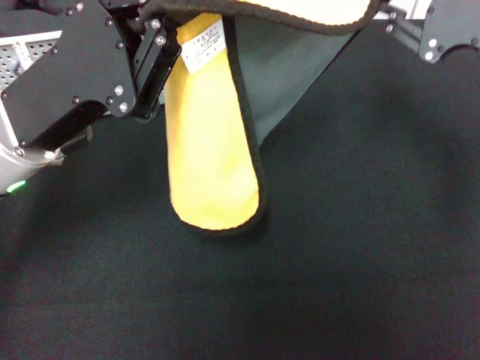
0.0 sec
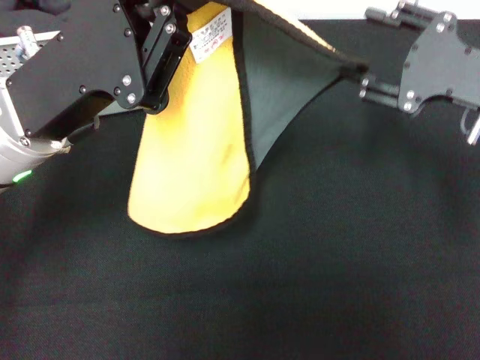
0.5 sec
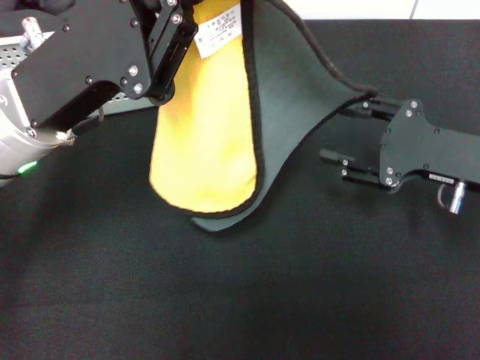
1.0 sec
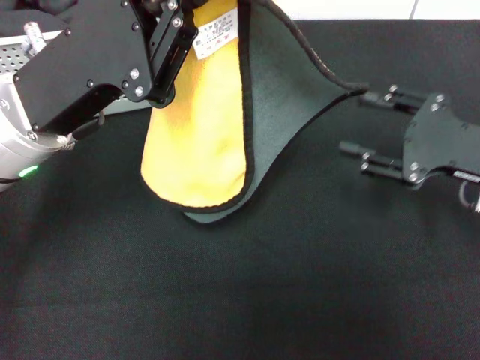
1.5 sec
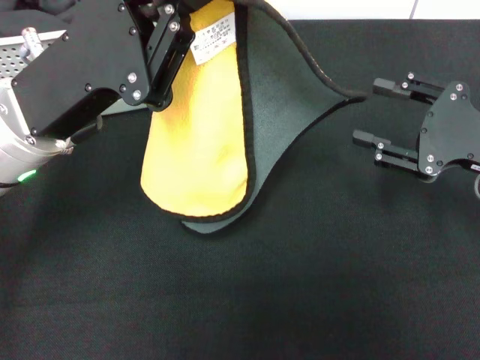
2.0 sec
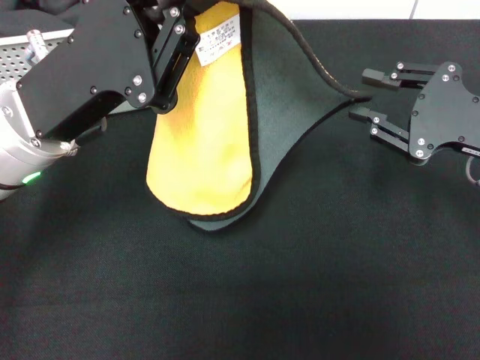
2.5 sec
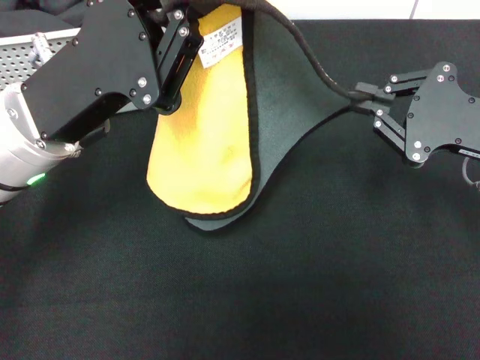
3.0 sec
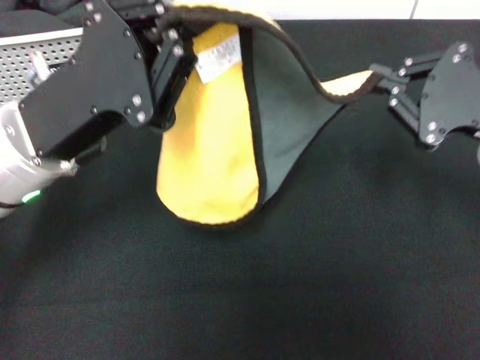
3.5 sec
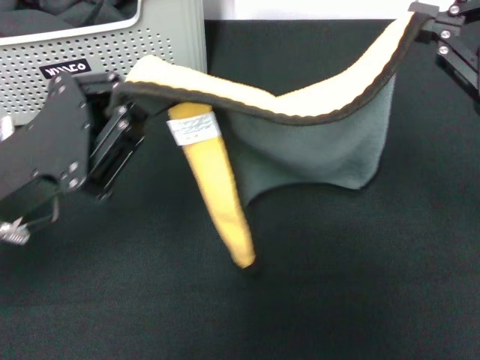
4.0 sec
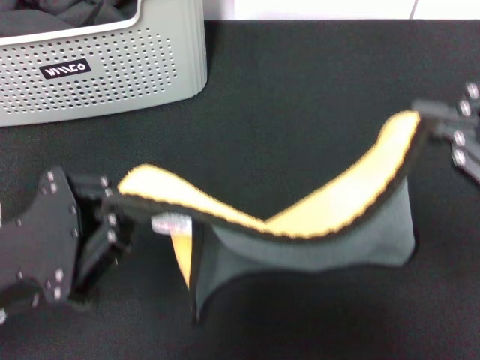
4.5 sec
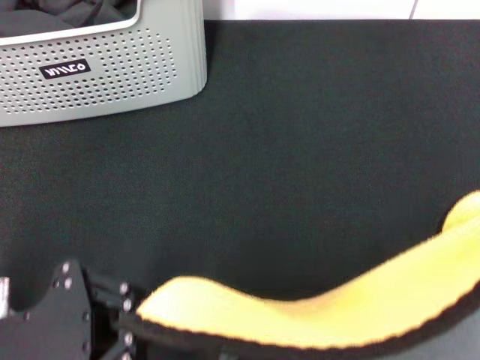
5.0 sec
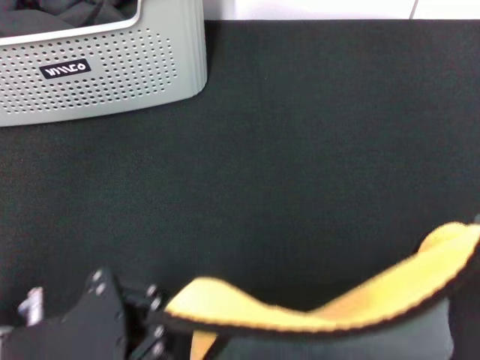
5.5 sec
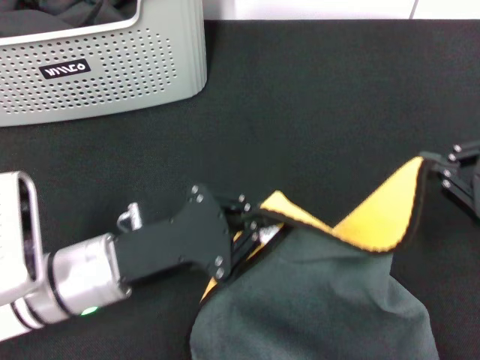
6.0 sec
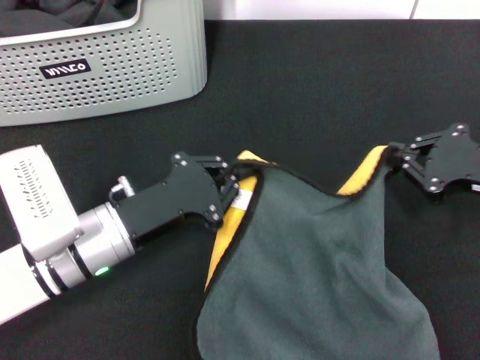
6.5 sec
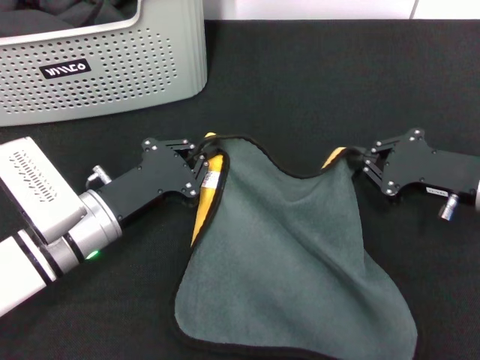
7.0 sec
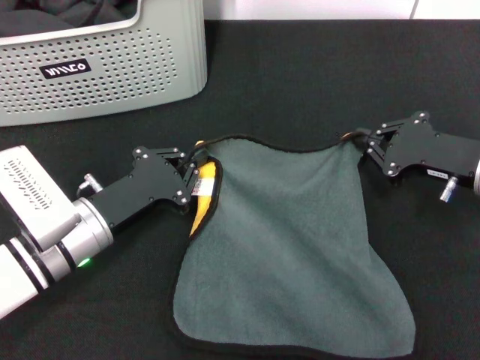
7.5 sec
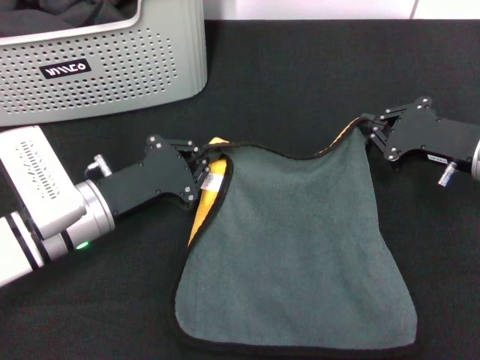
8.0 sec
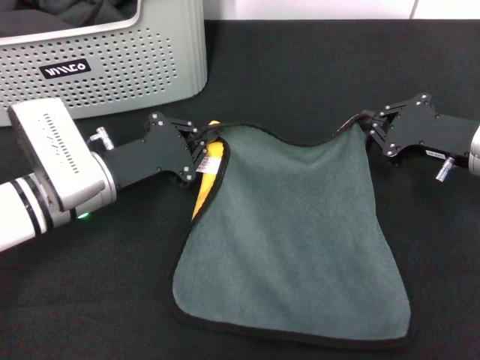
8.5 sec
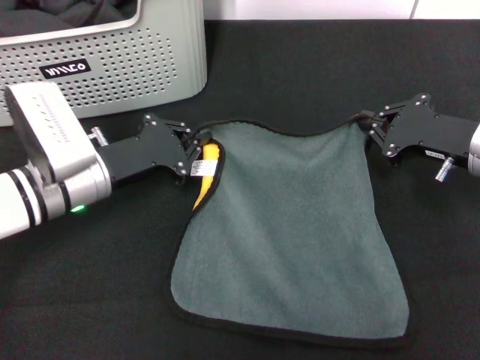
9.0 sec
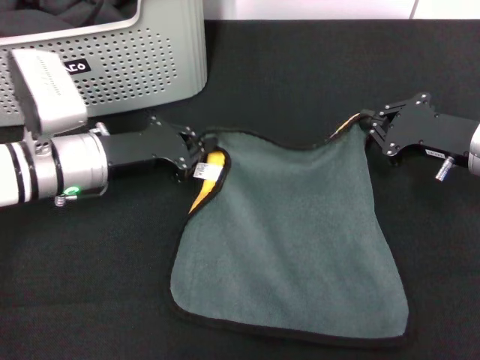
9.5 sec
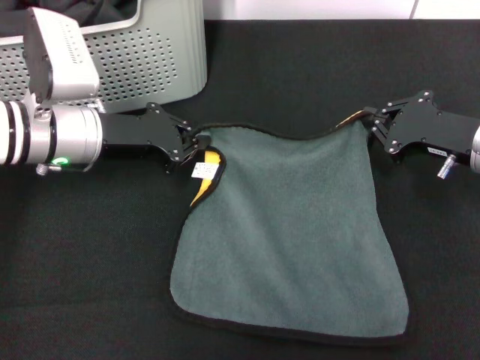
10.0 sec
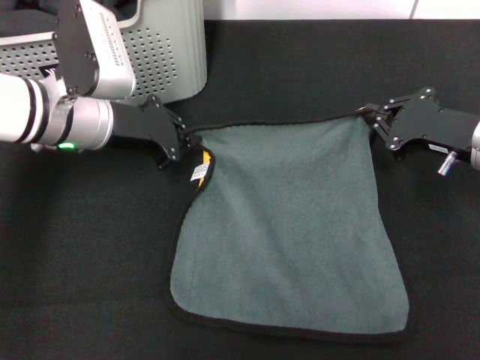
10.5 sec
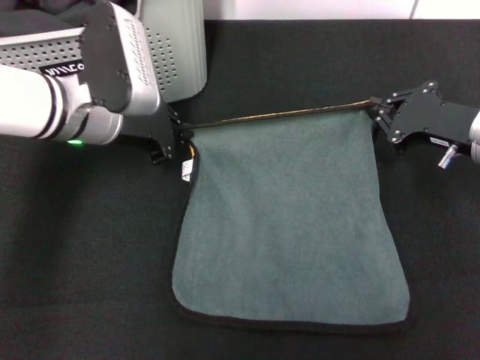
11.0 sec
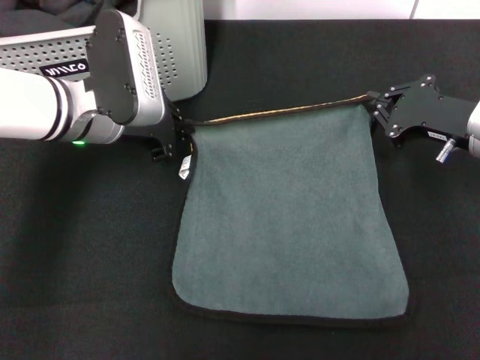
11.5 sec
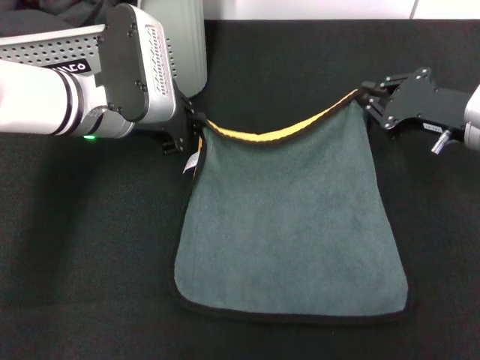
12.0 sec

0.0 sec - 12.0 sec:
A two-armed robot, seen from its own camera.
Task of the whole recording: pick up the towel from the storage box and lay it flat on the black tablecloth.
0.0 sec - 2.0 sec: The right gripper travels downward by approximately 10 cm, and opens up.
2.0 sec - 4.0 sec: The right gripper shifts approximately 15 cm upward, and closes its fingers, while the left gripper shifts by roughly 5 cm.
4.0 sec - 6.0 sec: The left gripper shifts roughly 10 cm downward and to the right, and travels backward and back again, roughly 10 cm each way. The right gripper shifts approximately 10 cm downward.
6.0 sec - 8.0 sec: The left gripper moves forward, about 5 cm. The right gripper is displaced forward, downward and to the left by approximately 15 cm.
8.0 sec - 10.0 sec: The left gripper goes some 10 cm forward and upward.
10.0 sec - 12.0 sec: The left gripper moves some 5 cm.

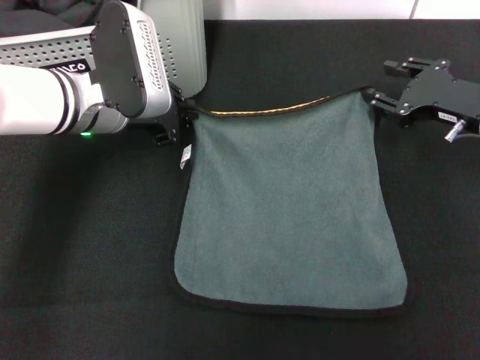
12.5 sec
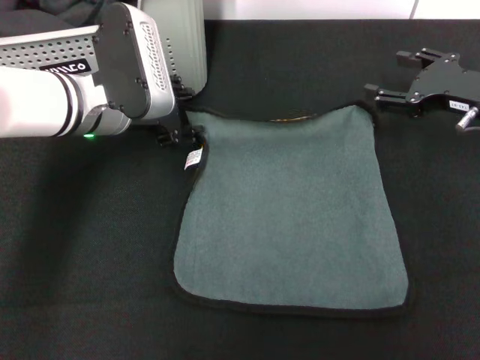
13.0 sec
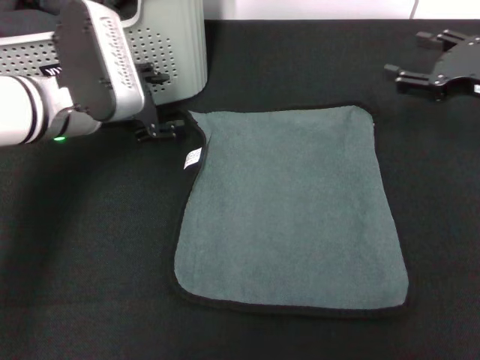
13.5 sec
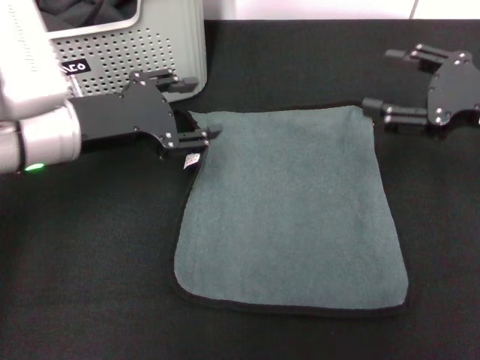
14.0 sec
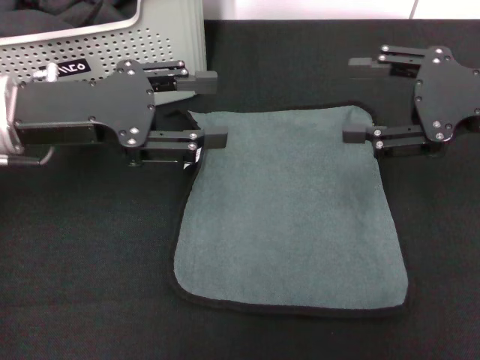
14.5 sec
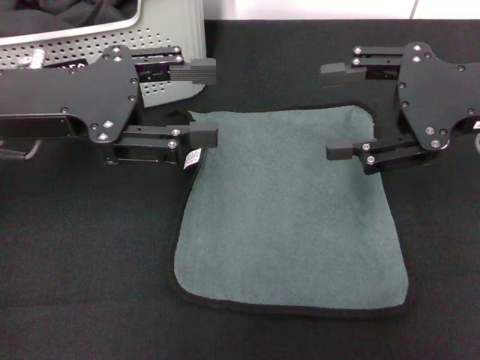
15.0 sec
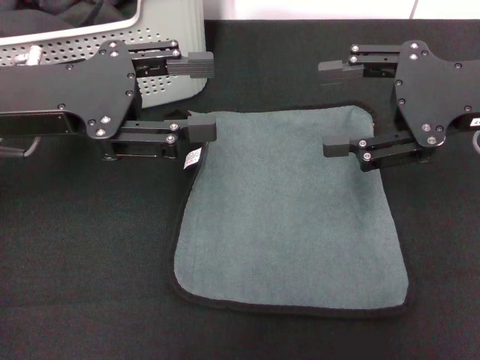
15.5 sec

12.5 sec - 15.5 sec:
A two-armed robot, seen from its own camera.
Task of the whole recording: pick up the towel from the storage box and lay it flat on the black tablecloth.
12.5 sec - 14.0 sec: The right gripper ends up some 5 cm from where it was, and opens its fingers; the left gripper is displaced backward by roughly 5 cm, and opens.
14.0 sec - 15.5 sec: The two grippers go about 5 cm upward.

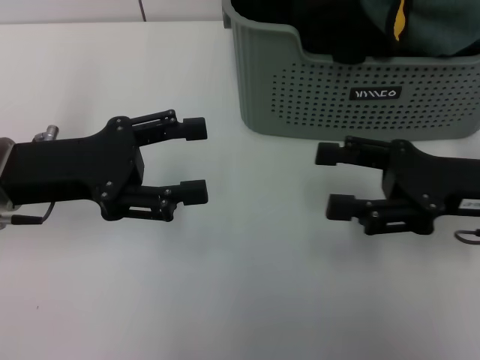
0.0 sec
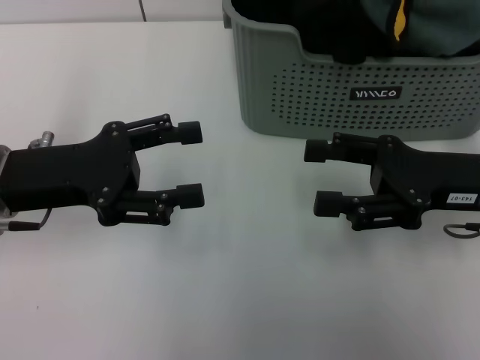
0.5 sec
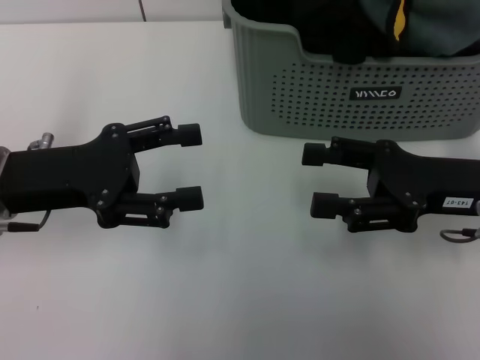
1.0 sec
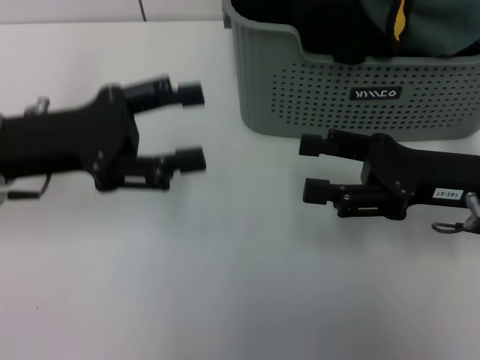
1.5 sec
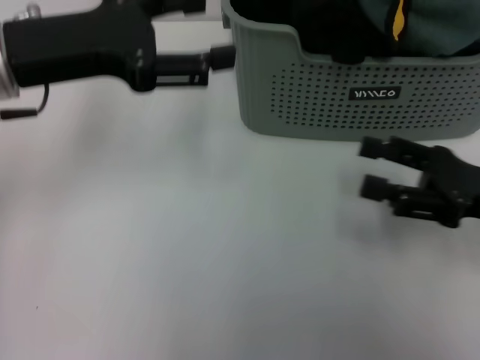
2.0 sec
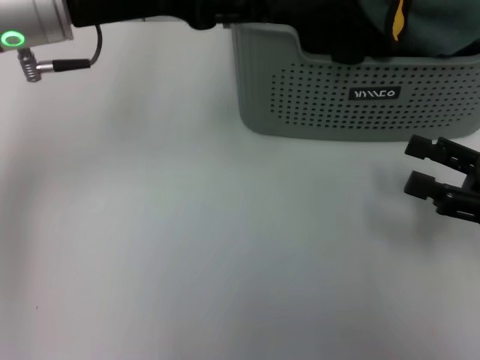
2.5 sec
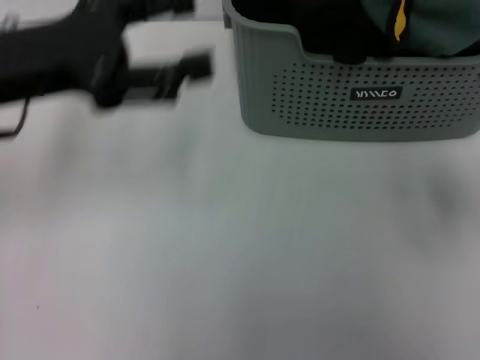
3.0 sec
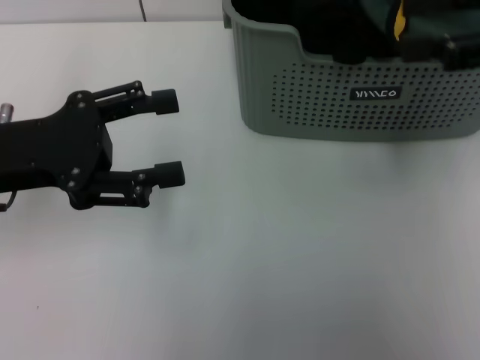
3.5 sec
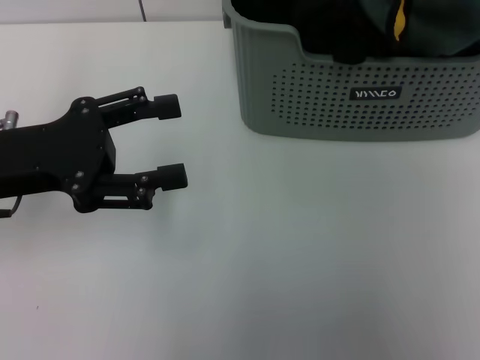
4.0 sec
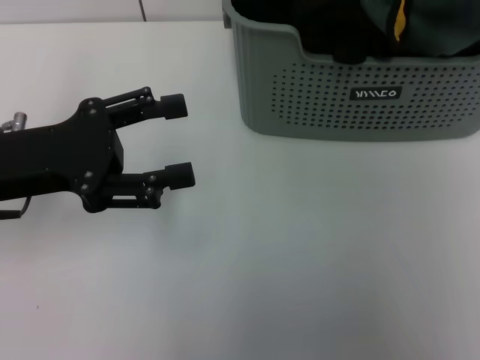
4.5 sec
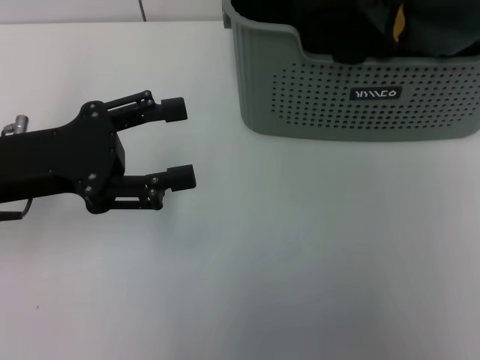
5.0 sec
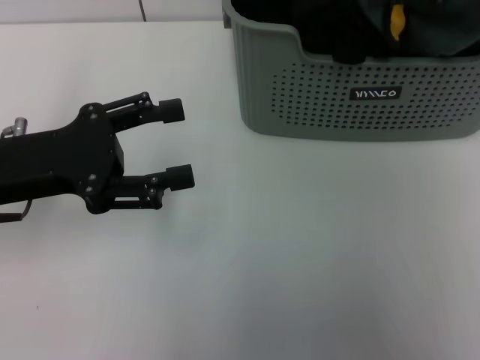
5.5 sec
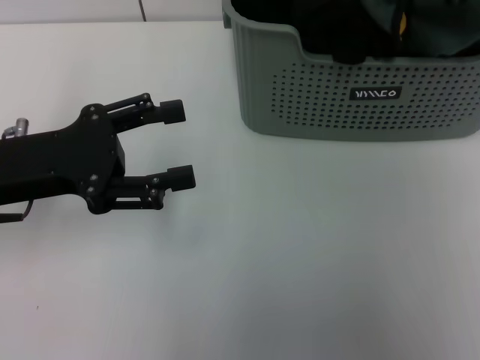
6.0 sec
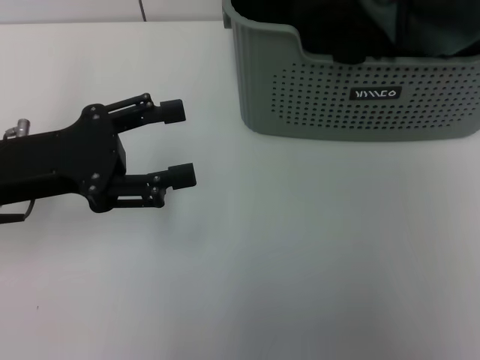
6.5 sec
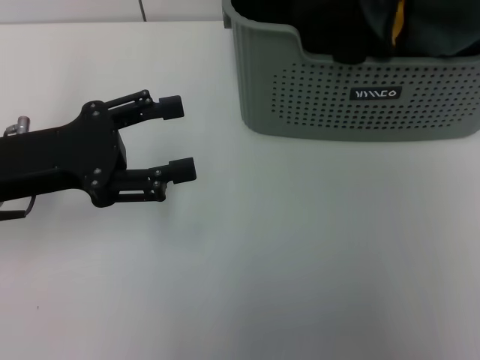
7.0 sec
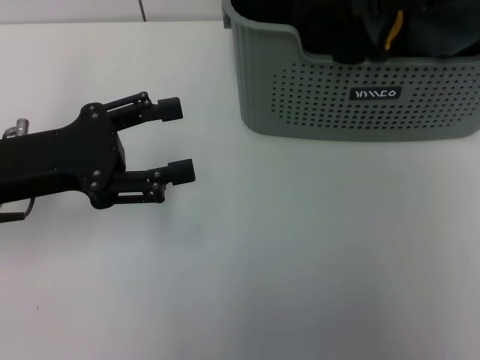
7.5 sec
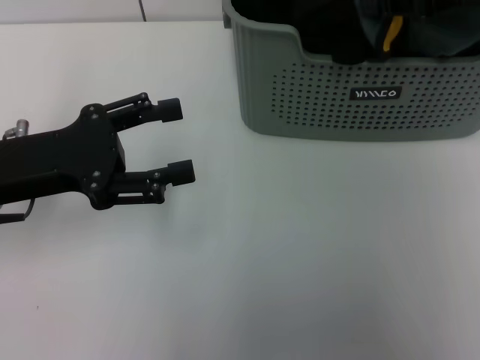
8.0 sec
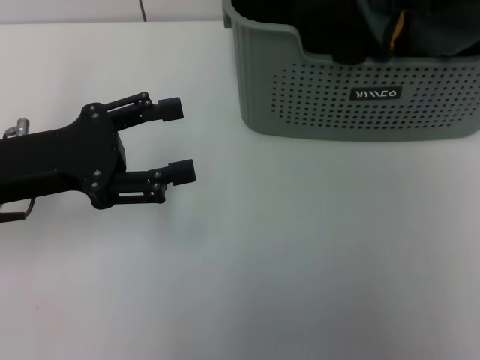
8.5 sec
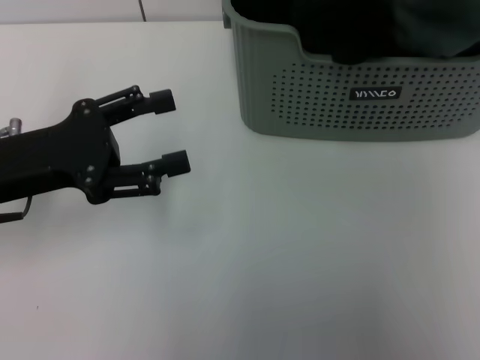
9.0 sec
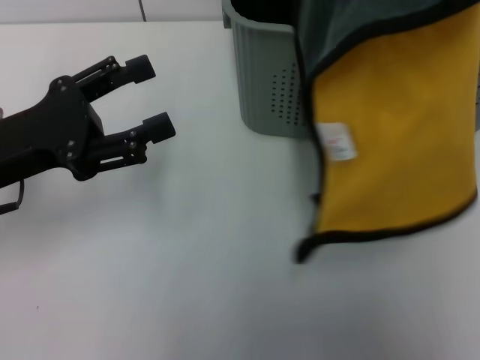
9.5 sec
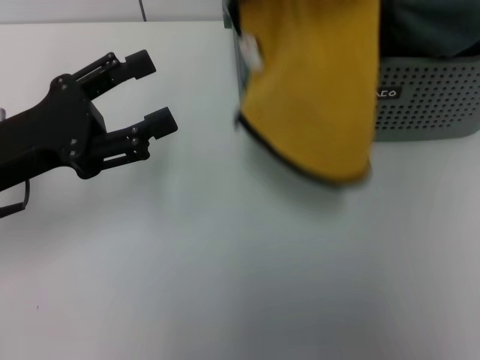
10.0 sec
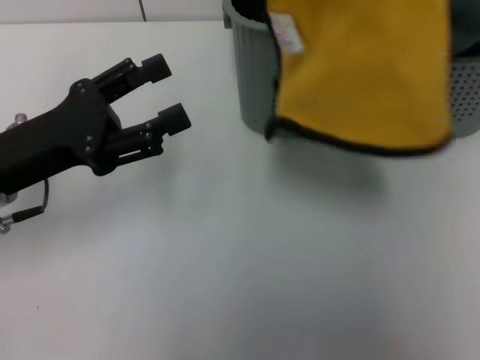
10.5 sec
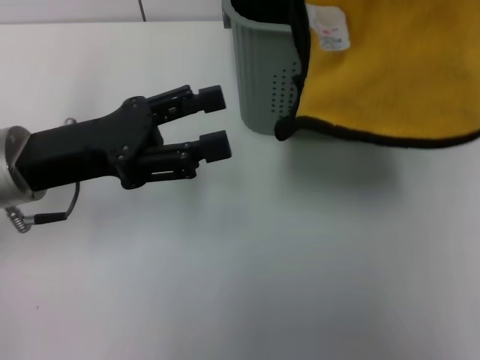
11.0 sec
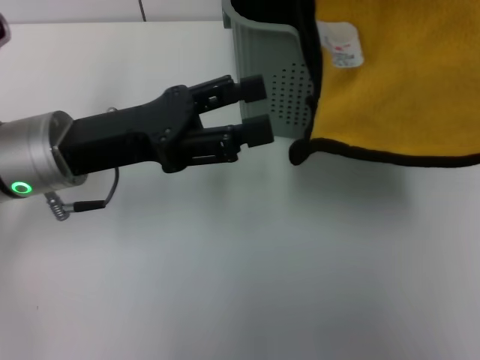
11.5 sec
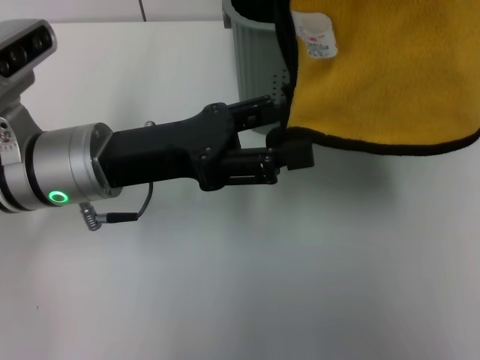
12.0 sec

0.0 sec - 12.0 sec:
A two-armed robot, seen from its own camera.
Task of the whole recording: pick up the towel from the storage box and lay it flat on the table.
Step, 0.0 sec - 5.5 sec: Pick up a towel with the right gripper.
0.0 sec - 2.0 sec: The left gripper travels upward by approximately 10 cm.
2.0 sec - 4.0 sec: The left gripper goes roughly 5 cm downward. The right gripper goes some 25 cm upward.
4.0 sec - 6.0 sec: The right gripper goes about 5 cm downward, and closes its fingers.
6.0 sec - 8.0 sec: The right gripper opens and closes again.
8.0 sec - 10.0 sec: The right gripper shifts roughly 10 cm backward and upward.
10.0 sec - 12.0 sec: The left gripper moves to the right, roughly 10 cm.
